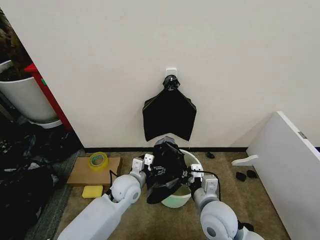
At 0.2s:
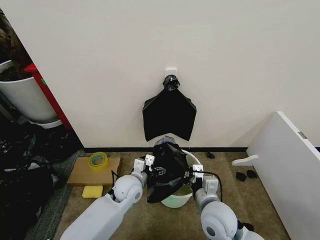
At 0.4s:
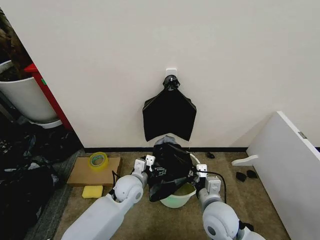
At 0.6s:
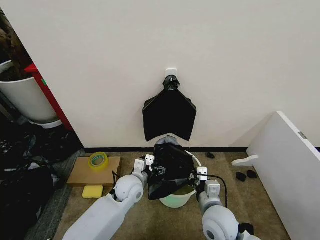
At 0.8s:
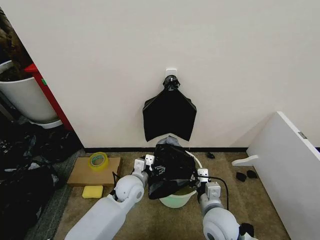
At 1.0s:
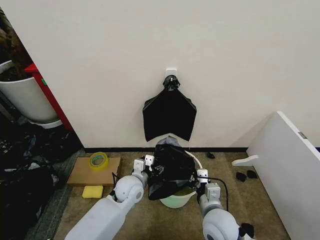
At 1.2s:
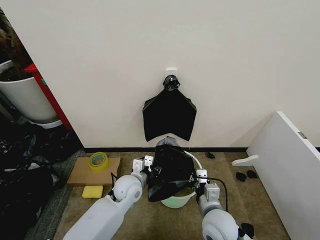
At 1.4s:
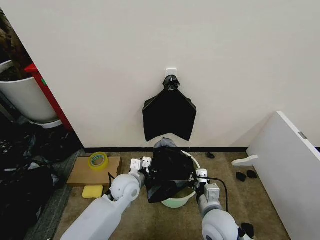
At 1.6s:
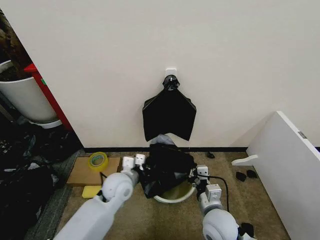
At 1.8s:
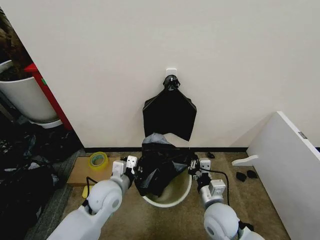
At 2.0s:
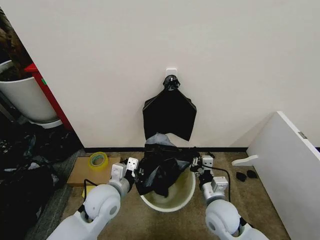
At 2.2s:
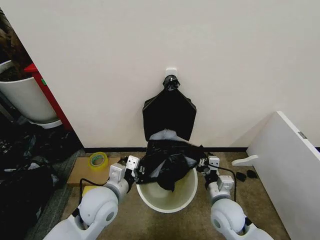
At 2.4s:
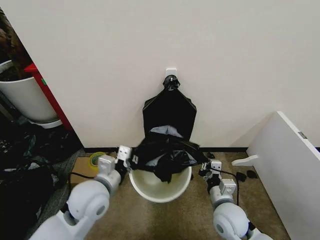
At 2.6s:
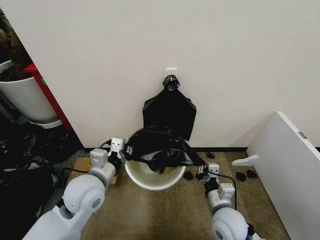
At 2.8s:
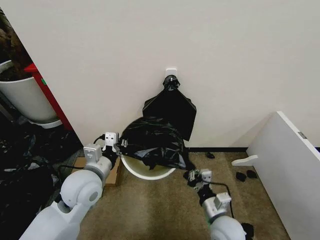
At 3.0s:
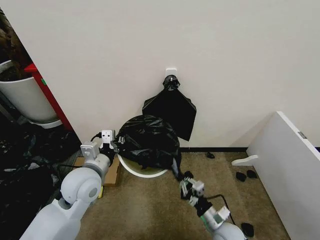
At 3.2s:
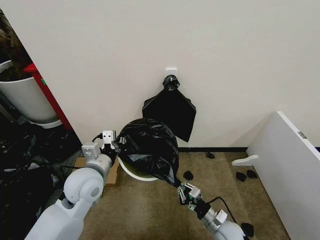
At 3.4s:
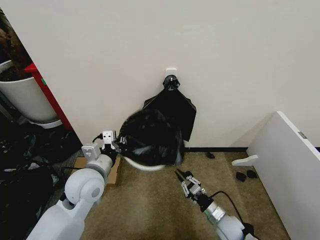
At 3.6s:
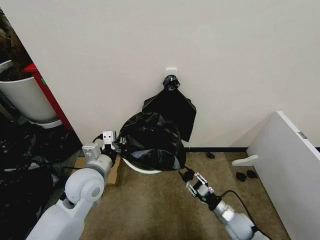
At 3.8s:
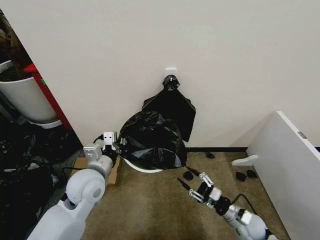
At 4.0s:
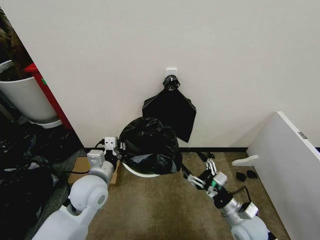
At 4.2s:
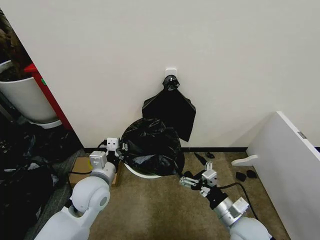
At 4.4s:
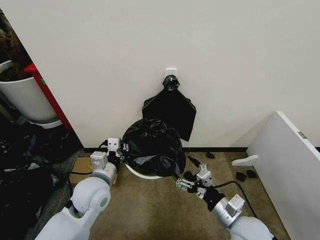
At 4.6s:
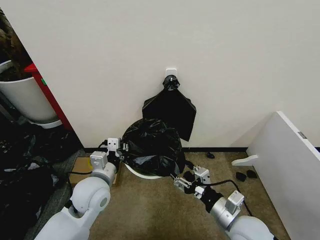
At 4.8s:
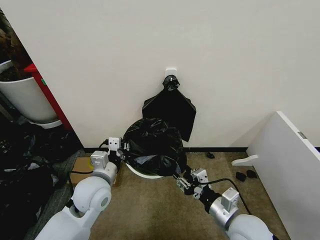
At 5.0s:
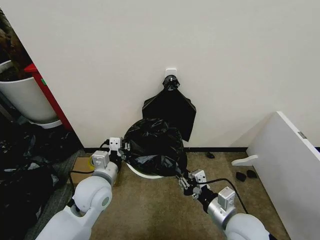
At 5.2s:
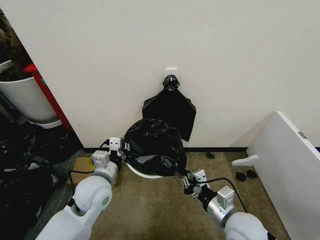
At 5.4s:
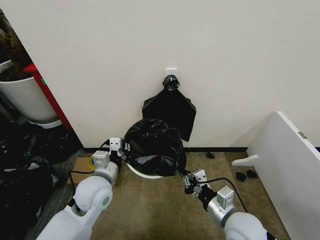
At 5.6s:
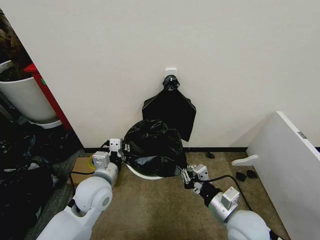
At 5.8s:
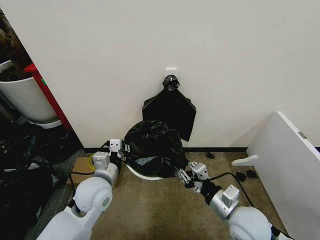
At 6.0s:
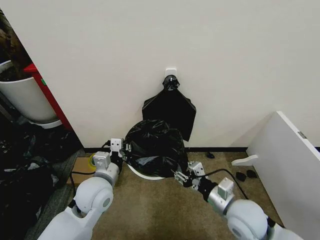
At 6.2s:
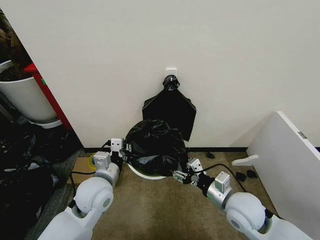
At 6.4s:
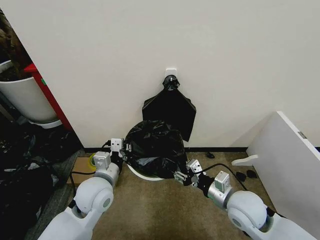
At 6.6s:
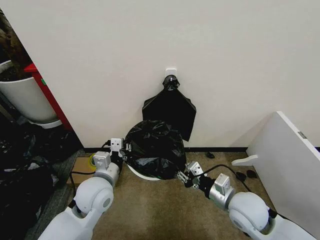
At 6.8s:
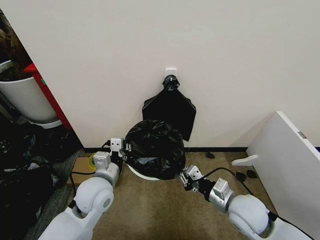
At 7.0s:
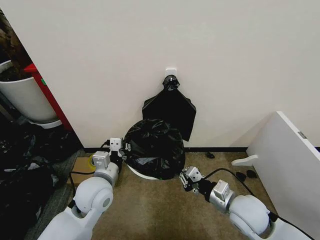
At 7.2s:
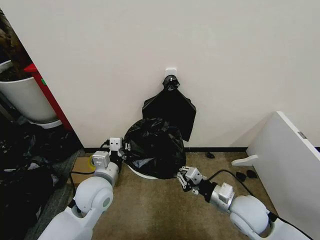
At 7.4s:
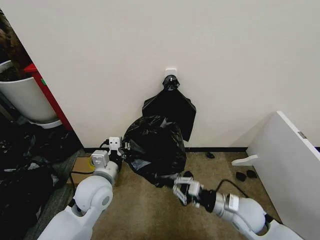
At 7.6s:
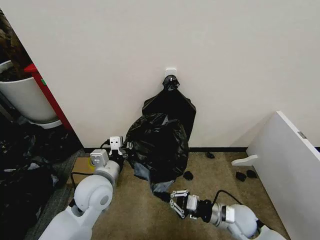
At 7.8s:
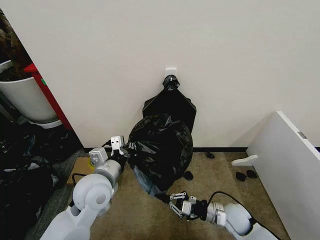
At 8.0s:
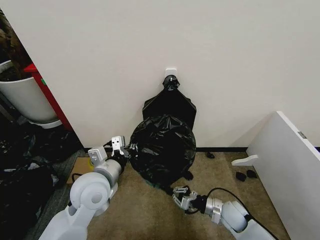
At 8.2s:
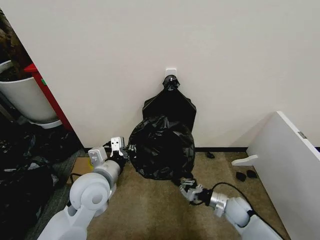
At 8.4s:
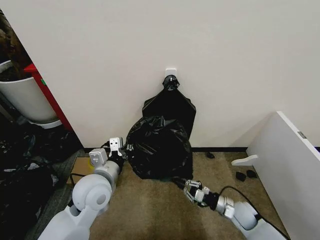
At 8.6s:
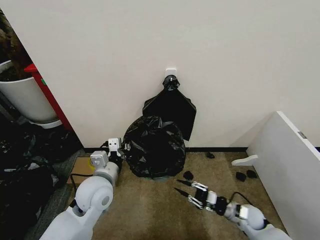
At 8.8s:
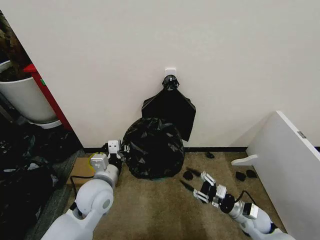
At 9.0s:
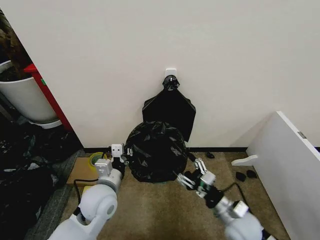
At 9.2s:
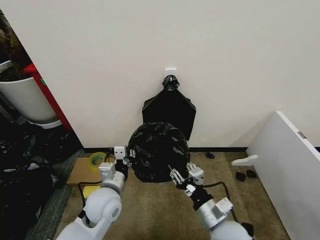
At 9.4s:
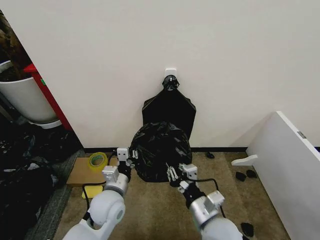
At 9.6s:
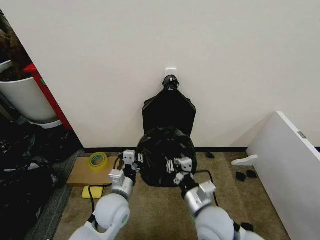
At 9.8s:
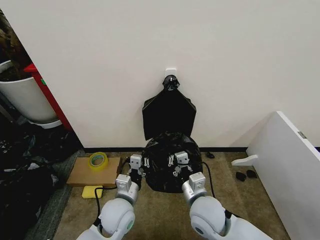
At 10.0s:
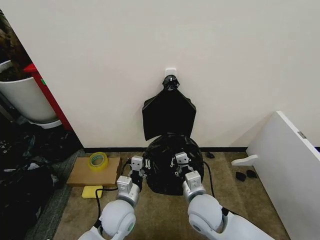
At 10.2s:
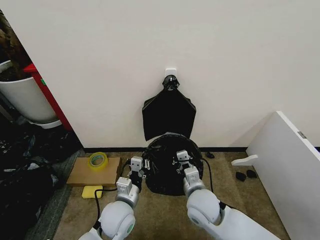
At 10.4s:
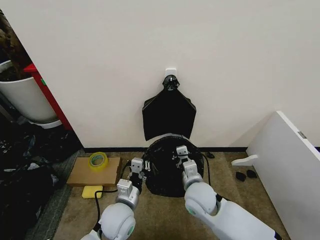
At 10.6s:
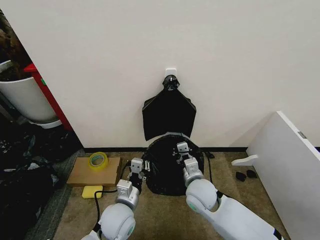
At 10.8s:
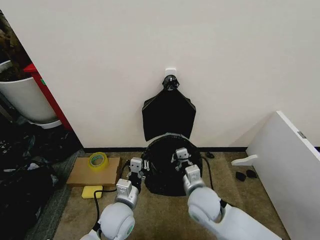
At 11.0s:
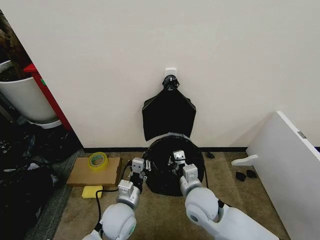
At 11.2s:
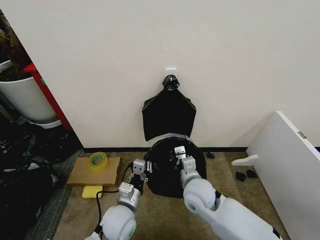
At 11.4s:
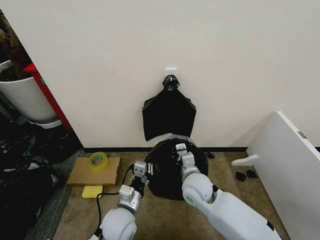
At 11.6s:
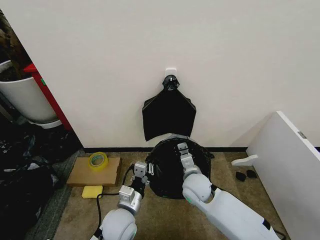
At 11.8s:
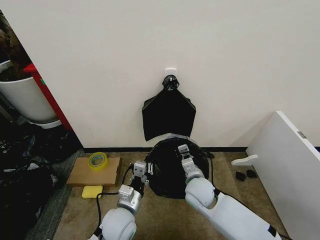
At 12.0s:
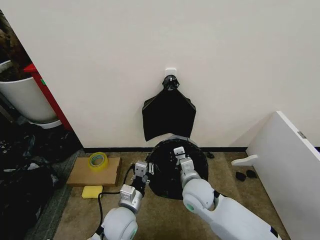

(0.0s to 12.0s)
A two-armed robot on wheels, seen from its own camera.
Task of the whole recording: Place the garbage bag over the trash bin.
0.0s - 1.6s: The right gripper is displaced downward by some 5 cm. Meanwhile the left gripper closes up.
1.6s - 3.0s: The right gripper moves downward and to the right, roughly 10 cm. Meanwhile the left gripper heads upward and to the left, covering some 10 cm.
3.0s - 4.4s: The right gripper travels upward by about 15 cm, and opens up.
4.4s - 6.0s: The right gripper closes its fingers.
6.0s - 7.6s: The right gripper shifts about 10 cm downward, and closes its fingers.
7.6s - 9.0s: The right gripper reaches roughly 10 cm downward, then returns, and opens up.
9.0s - 10.4s: The left gripper heads downward and to the right, covering approximately 10 cm, while the right gripper is displaced to the left and forward by roughly 15 cm, and closes up.
10.4s - 12.0s: The grippers stay close to where they were, moving slightly.

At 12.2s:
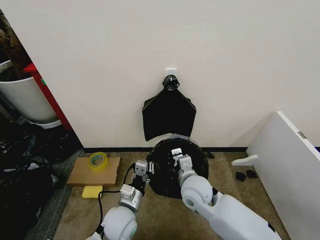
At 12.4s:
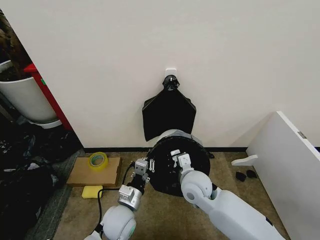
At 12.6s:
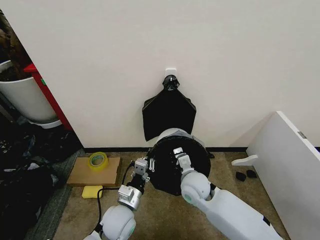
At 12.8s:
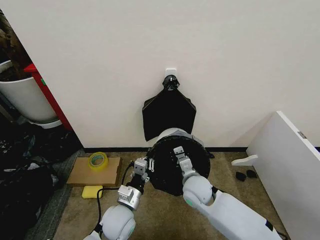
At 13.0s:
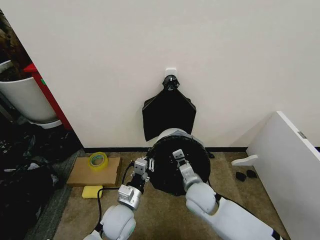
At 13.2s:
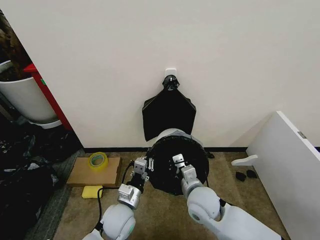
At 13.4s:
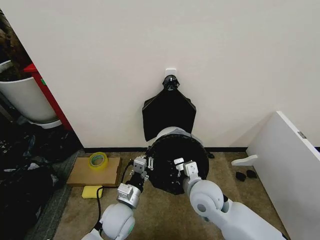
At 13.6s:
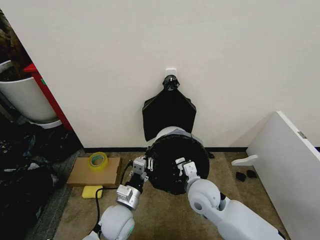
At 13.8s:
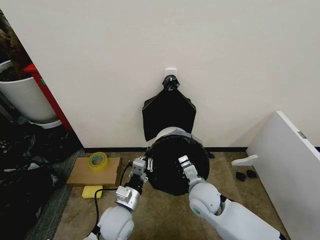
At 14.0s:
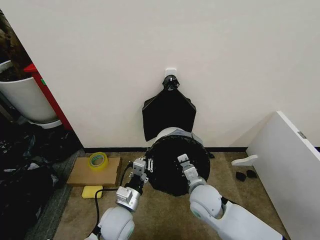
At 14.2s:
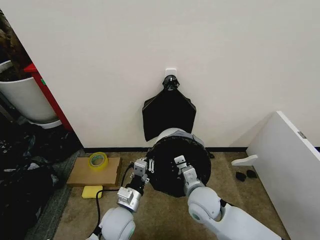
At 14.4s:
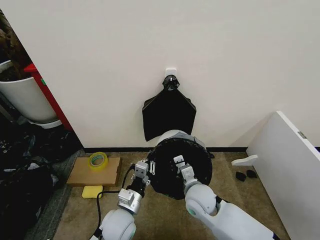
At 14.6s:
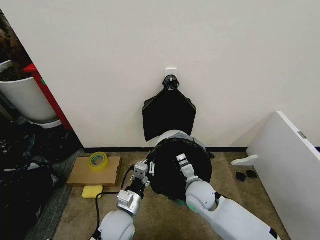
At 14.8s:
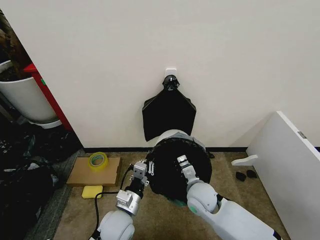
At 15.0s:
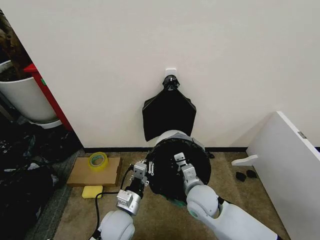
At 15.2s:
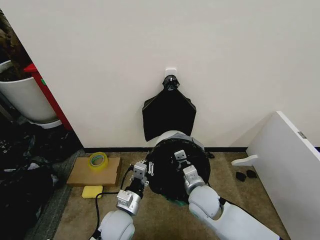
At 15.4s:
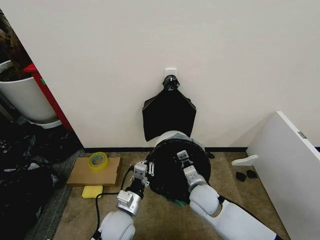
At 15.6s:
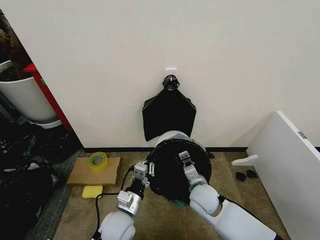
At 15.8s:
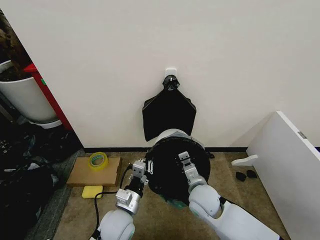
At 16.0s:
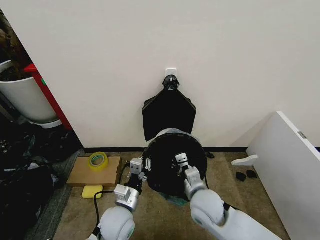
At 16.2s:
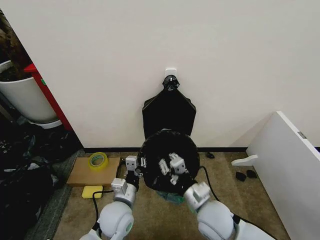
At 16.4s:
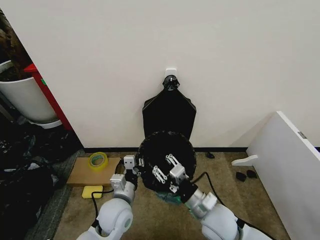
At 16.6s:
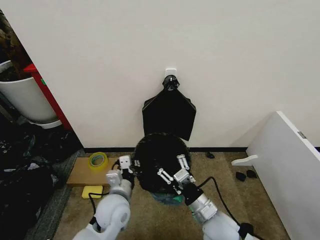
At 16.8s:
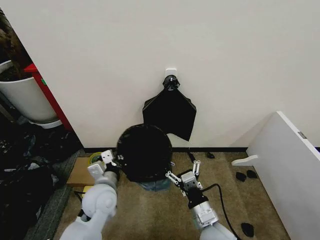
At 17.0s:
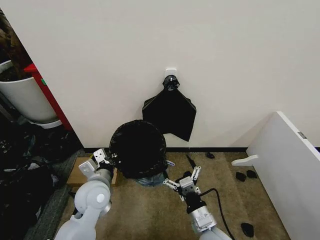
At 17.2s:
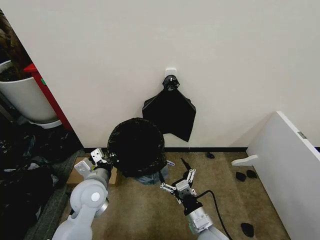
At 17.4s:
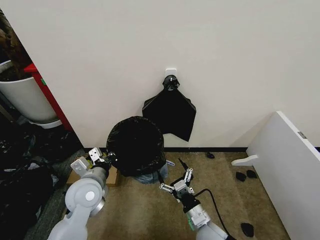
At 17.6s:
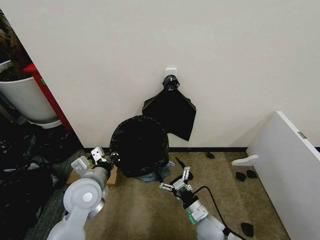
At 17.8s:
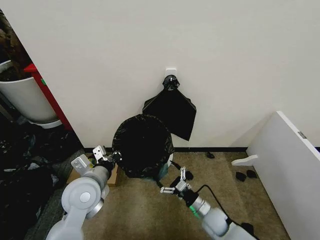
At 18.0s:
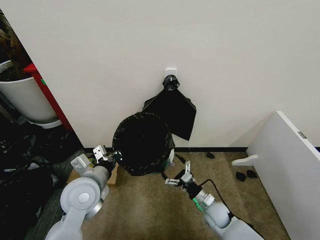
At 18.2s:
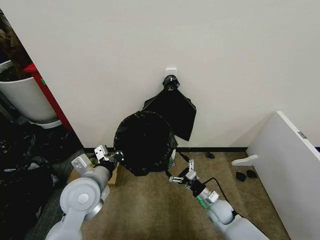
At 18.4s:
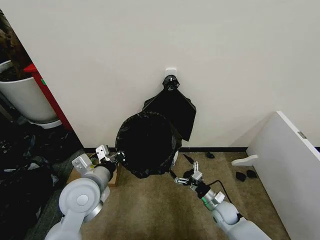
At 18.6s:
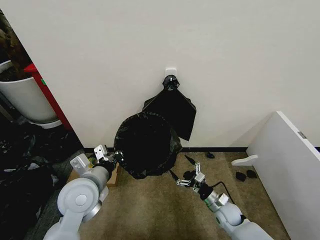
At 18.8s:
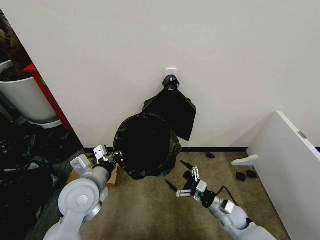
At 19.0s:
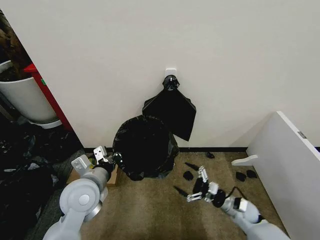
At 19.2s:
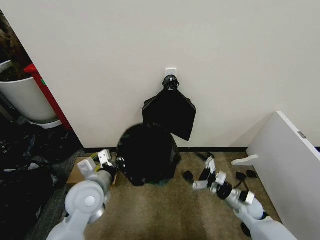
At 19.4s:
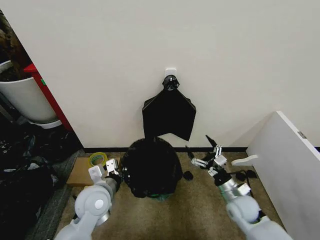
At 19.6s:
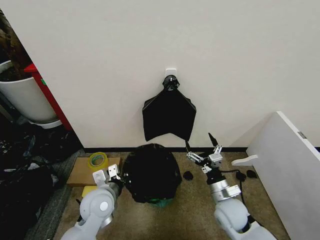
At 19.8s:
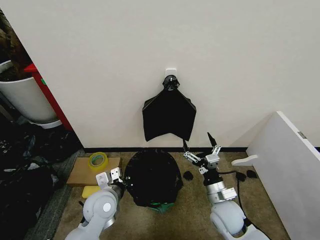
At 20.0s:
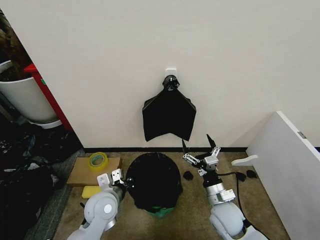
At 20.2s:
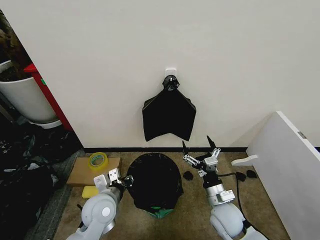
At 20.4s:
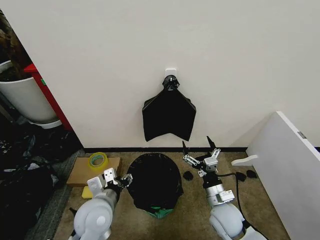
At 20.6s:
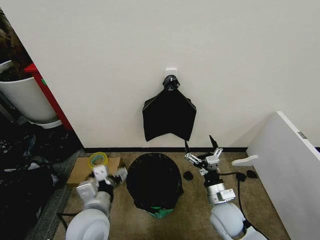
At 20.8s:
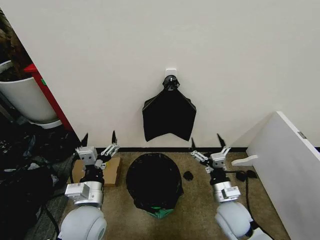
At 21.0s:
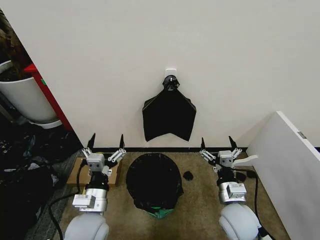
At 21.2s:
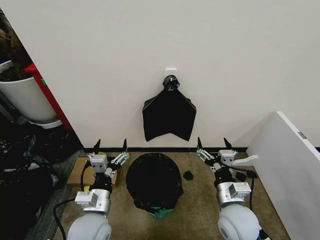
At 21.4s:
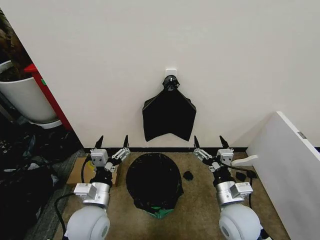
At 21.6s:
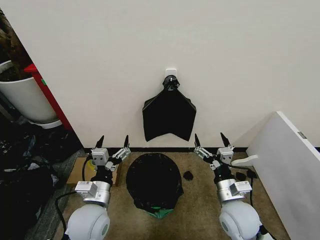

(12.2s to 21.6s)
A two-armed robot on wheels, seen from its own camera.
Task of the whole recording: Place the garbage bag over the trash bin.
12.2s - 13.8s: The right gripper swings up and down, some 5 cm each way, with 2 reversals.
15.4s - 17.0s: The right gripper moves backward, some 15 cm, and opens up, while the left gripper shifts roughly 10 cm upward, to the left and forward.
17.0s - 18.4s: The left gripper is displaced upward by approximately 5 cm. Meanwhile the right gripper goes about 20 cm downward, forward and to the right.
18.4s - 20.0s: The right gripper heads upward, covering about 15 cm, while the left gripper moves downward, some 10 cm.
20.0s - 21.6s: The right gripper goes approximately 5 cm upward, while the left gripper opens up.
